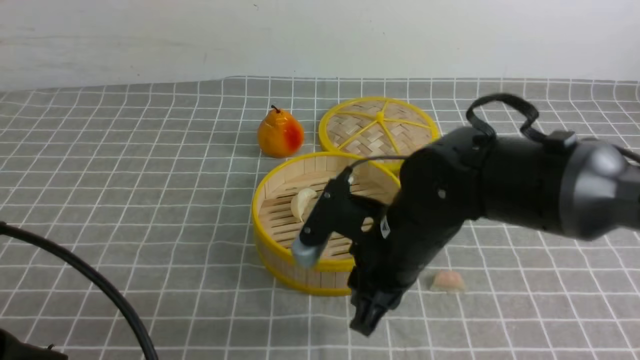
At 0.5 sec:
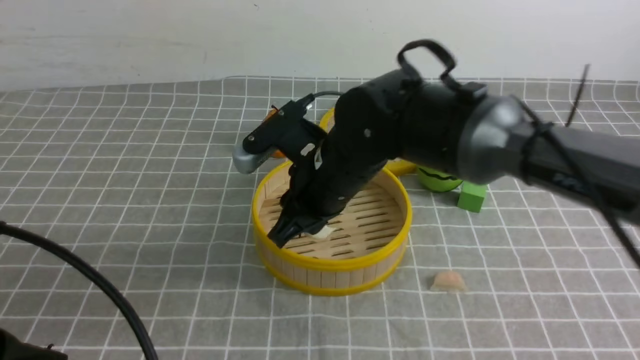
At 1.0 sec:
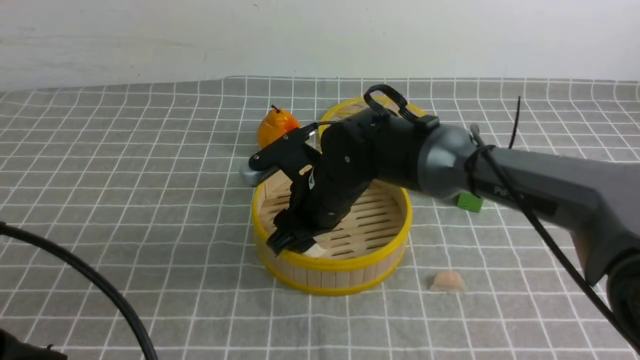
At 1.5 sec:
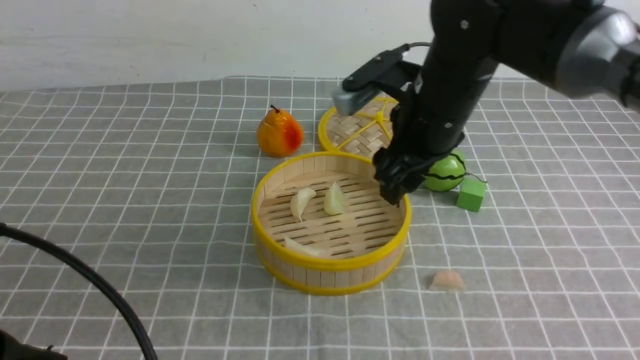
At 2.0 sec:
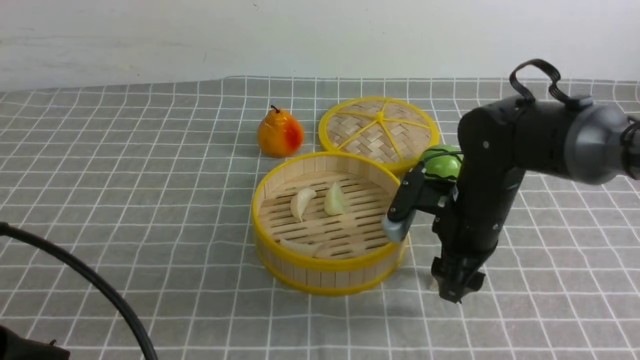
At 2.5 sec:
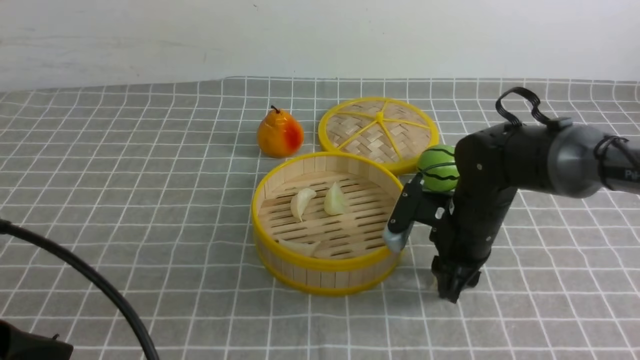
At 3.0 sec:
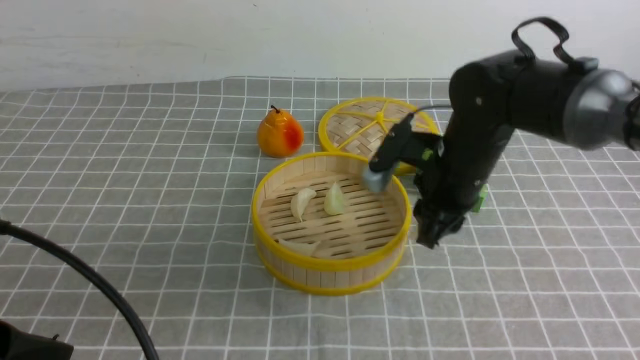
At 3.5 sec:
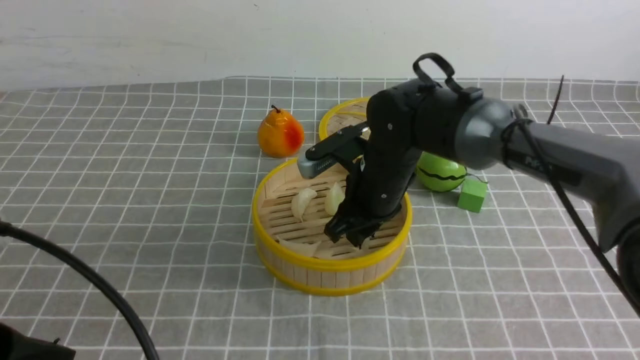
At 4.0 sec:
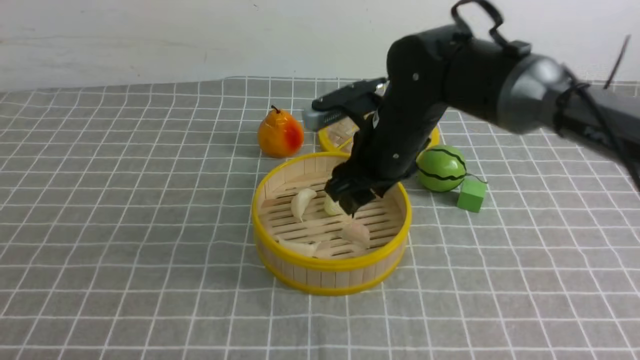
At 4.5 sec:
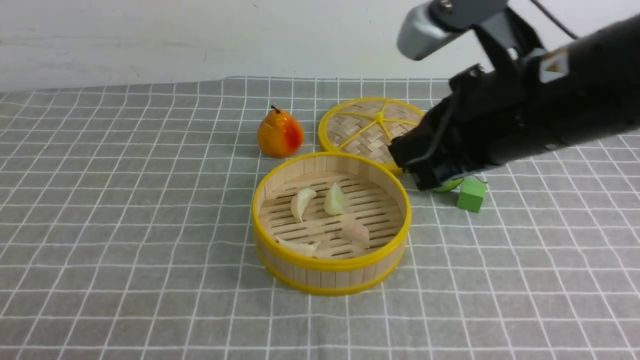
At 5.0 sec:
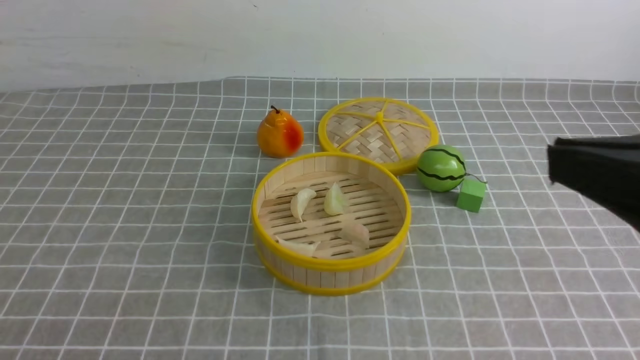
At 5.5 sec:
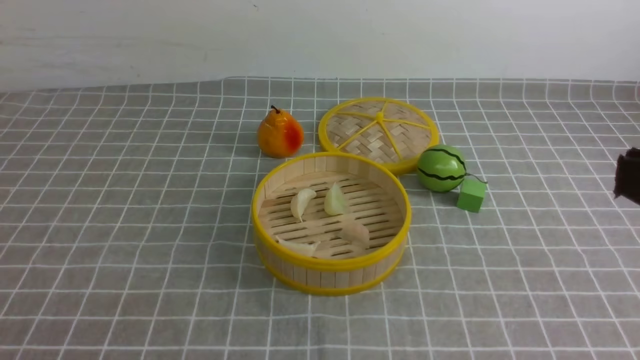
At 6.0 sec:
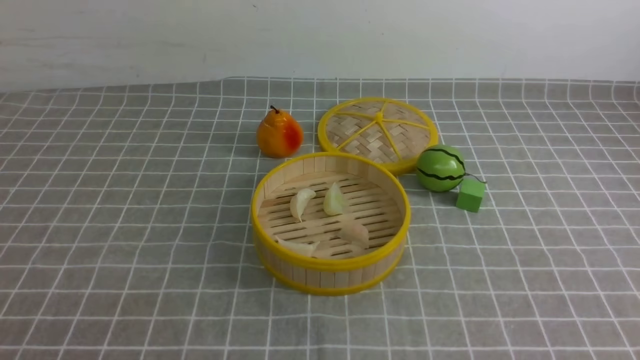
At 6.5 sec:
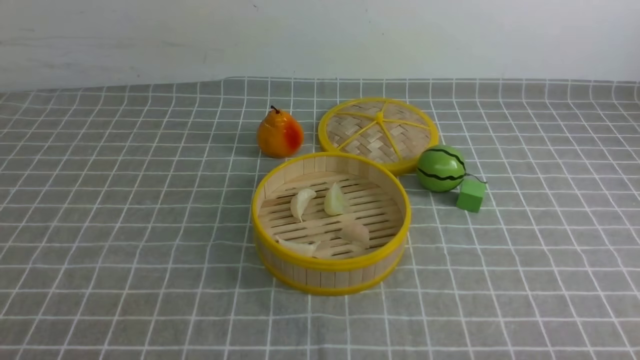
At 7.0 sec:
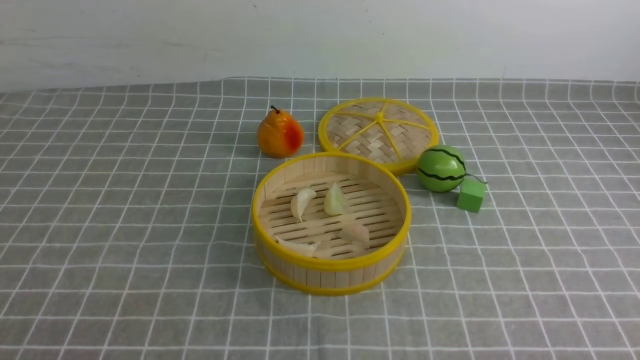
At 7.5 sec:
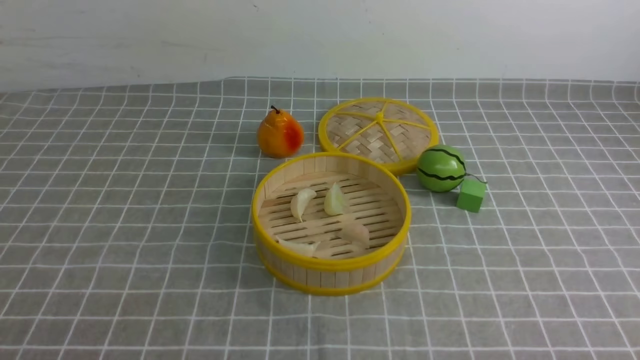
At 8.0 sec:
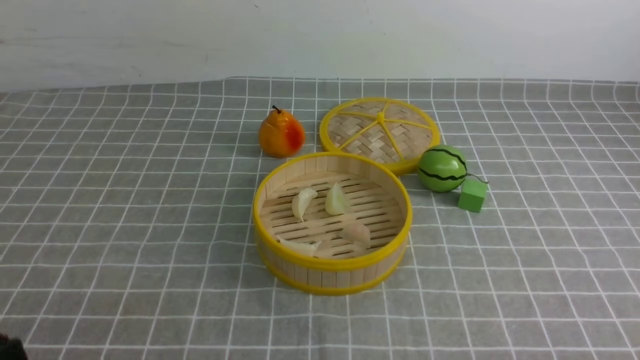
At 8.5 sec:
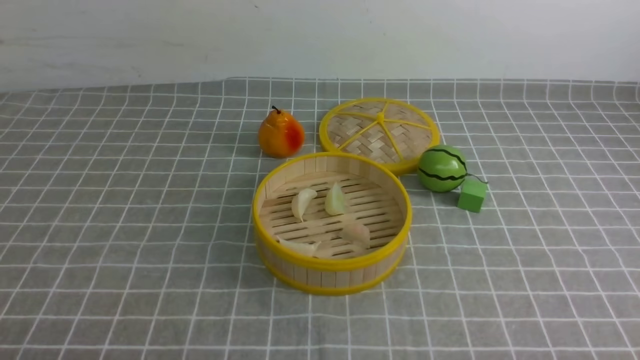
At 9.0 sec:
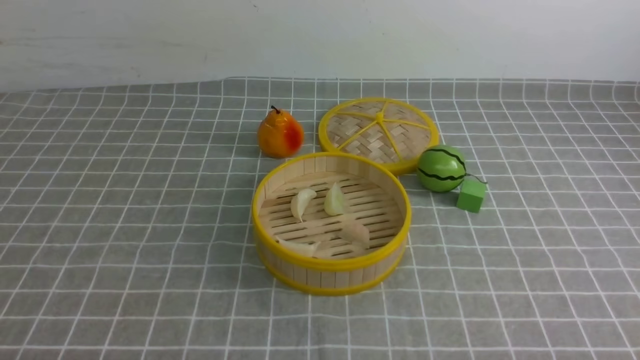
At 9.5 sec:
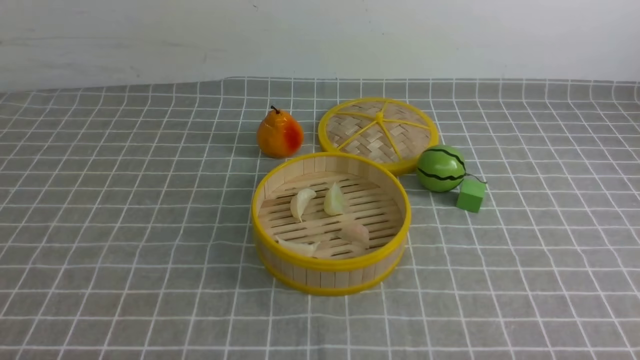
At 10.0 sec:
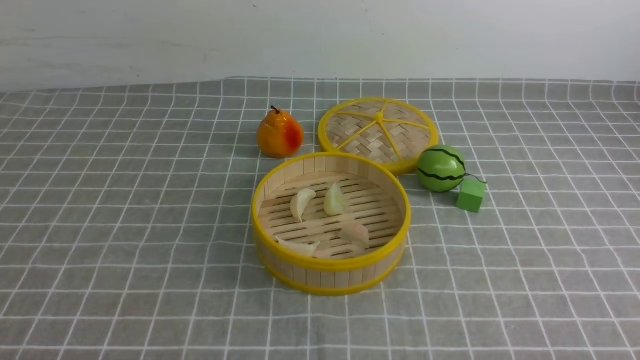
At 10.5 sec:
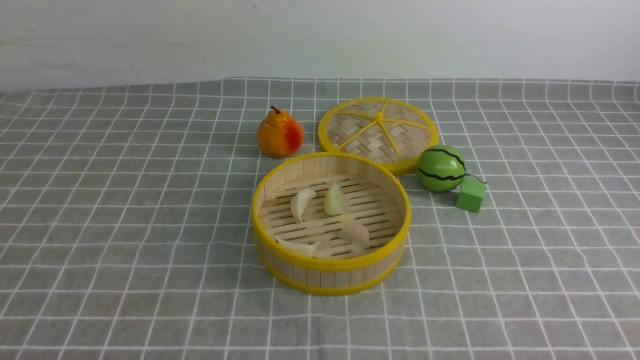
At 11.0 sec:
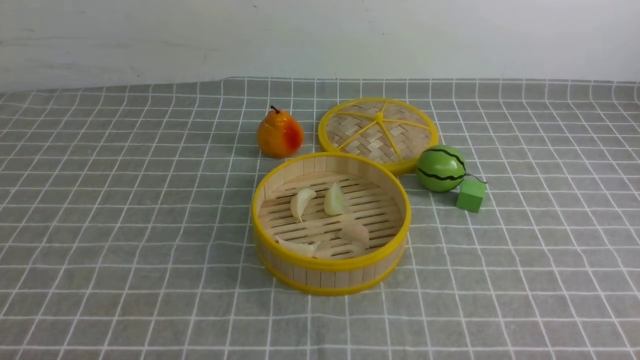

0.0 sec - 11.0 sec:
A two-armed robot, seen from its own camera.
Task of the whole recording: put the dumplings into the steamer on the table with the grey tablecloth.
Step, 0.0 sec - 1.0 sec: use the right arm to put the dumpling into the steamer.
Step, 1.5 sec - 2.5 sec: use the right arm to grab a dumpling.
Step, 3.0 sec - 3.5 sec: use the right arm to put the dumpling into the steamer.
0.0 sec - 2.0 sec: The right gripper moves to the right and forward, roughly 10 cm, and opens up.
2.0 sec - 3.5 sec: The right gripper is displaced to the left by approximately 10 cm, and closes up.
3.5 sec - 5.5 sec: The right gripper is displaced backward, upward and to the right by about 40 cm, and closes up; the left gripper goes roughly 5 cm backward.
9.0 sec - 11.0 sec: Neither gripper changes place.

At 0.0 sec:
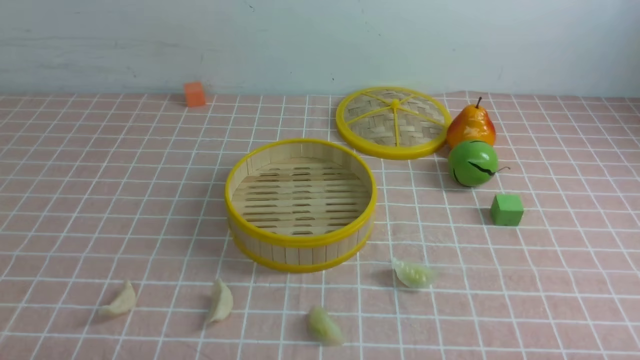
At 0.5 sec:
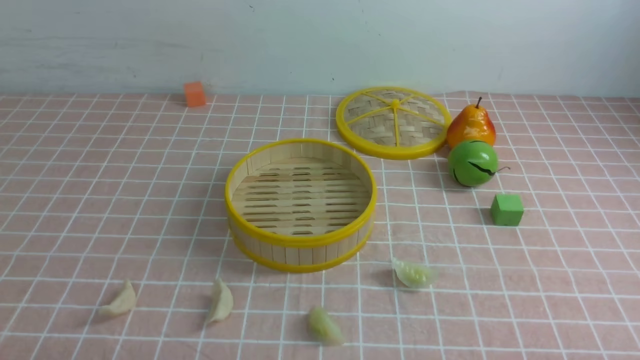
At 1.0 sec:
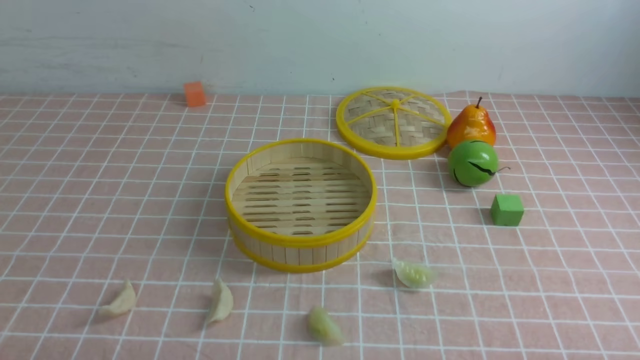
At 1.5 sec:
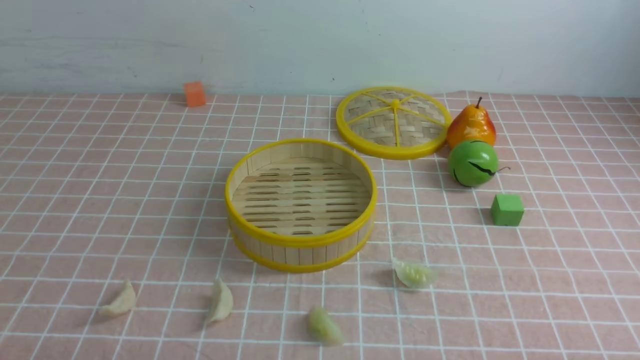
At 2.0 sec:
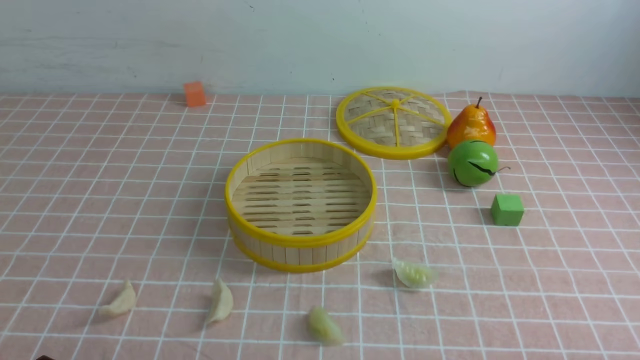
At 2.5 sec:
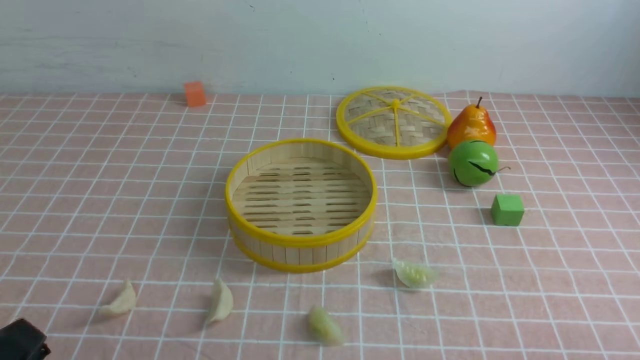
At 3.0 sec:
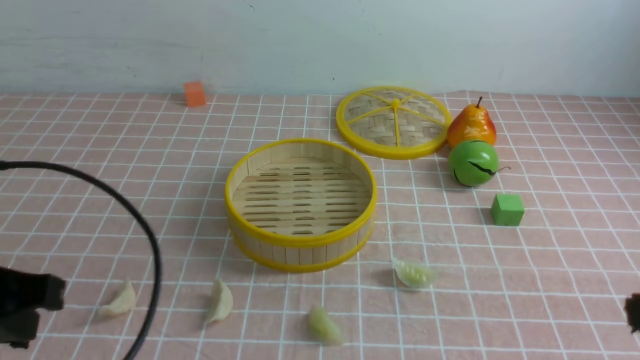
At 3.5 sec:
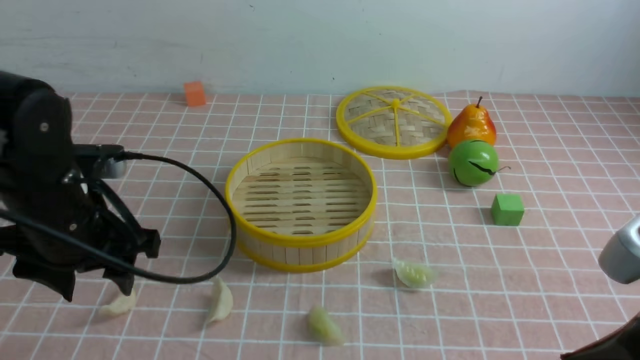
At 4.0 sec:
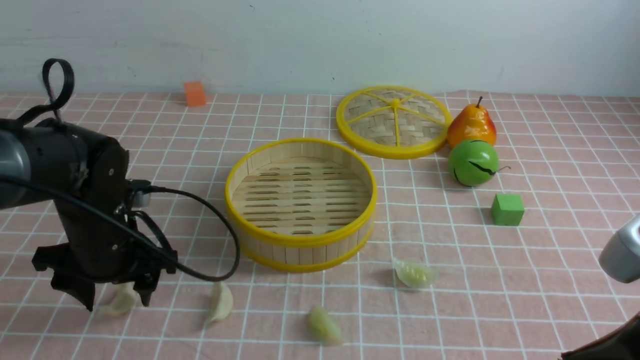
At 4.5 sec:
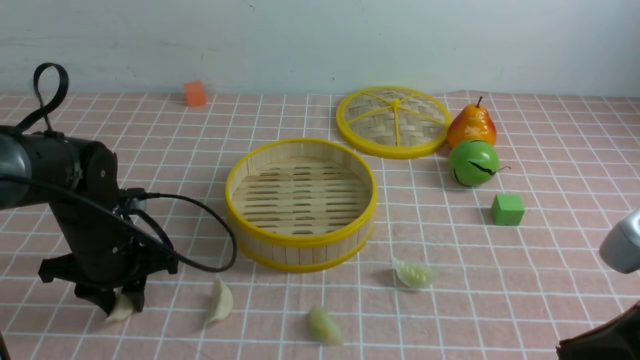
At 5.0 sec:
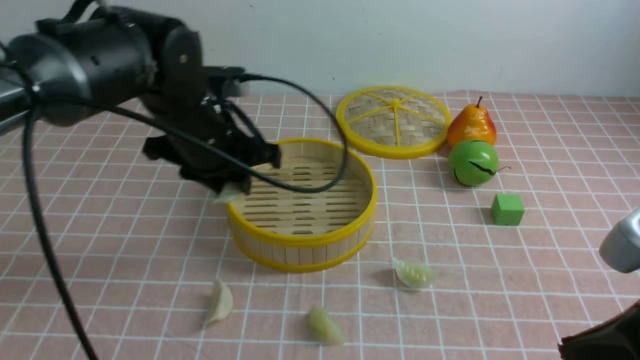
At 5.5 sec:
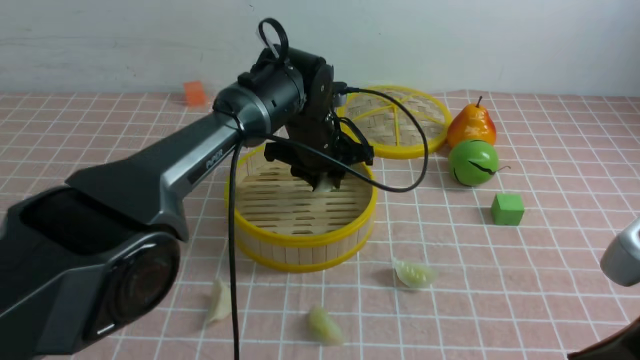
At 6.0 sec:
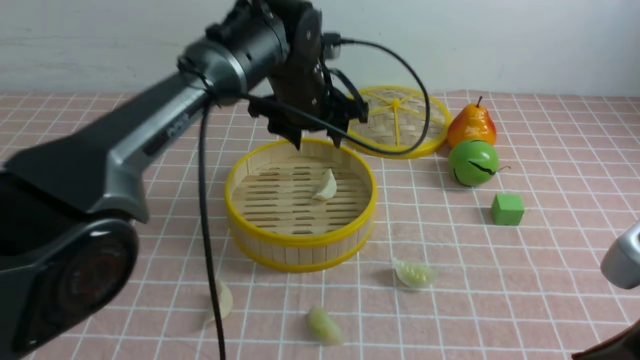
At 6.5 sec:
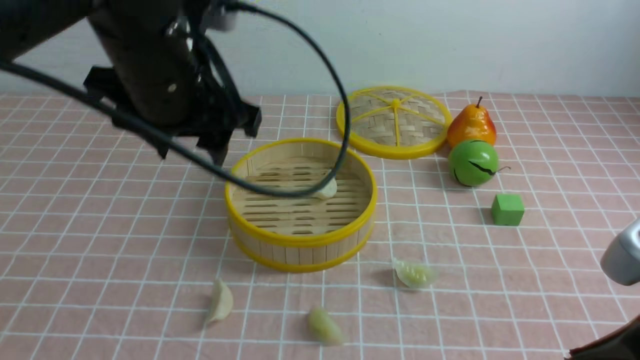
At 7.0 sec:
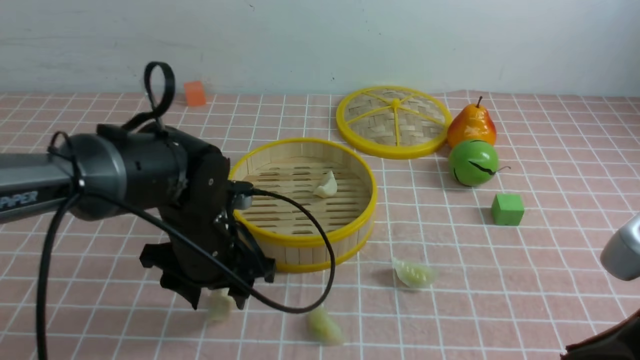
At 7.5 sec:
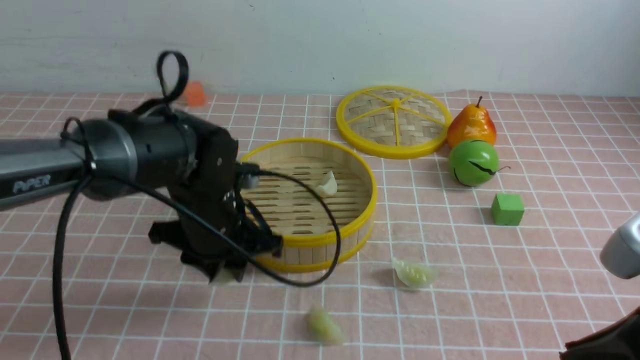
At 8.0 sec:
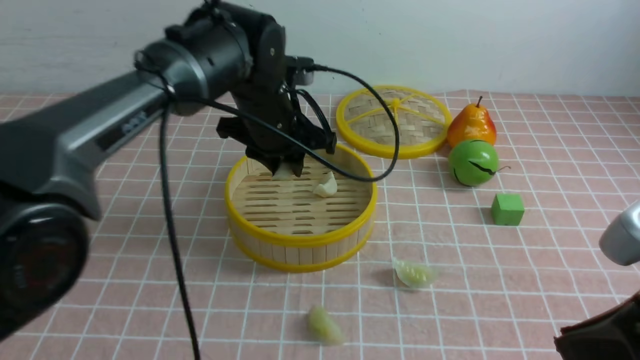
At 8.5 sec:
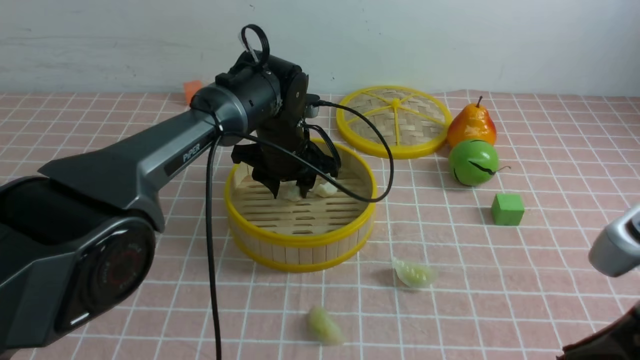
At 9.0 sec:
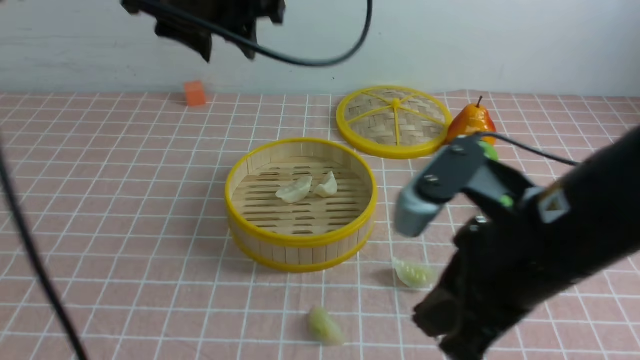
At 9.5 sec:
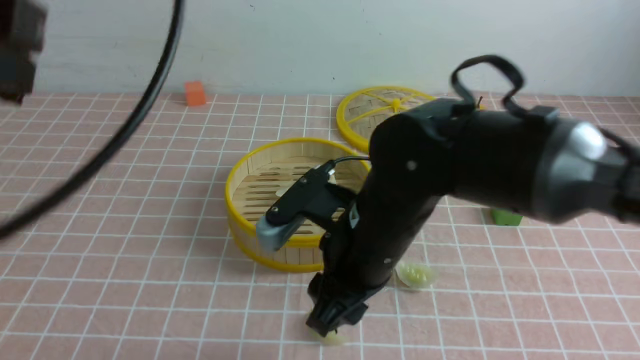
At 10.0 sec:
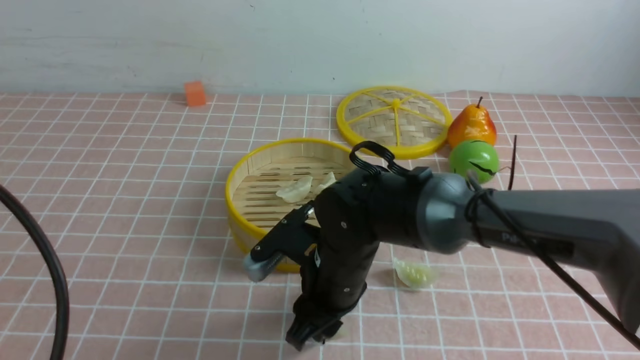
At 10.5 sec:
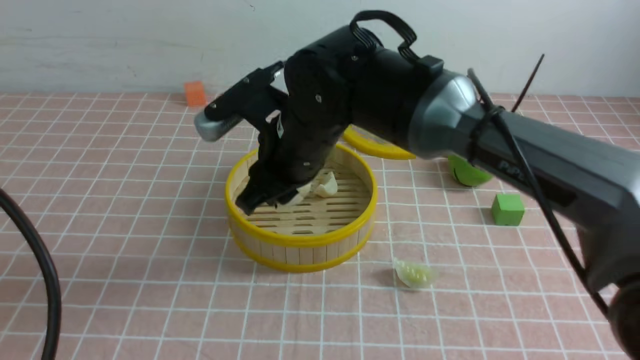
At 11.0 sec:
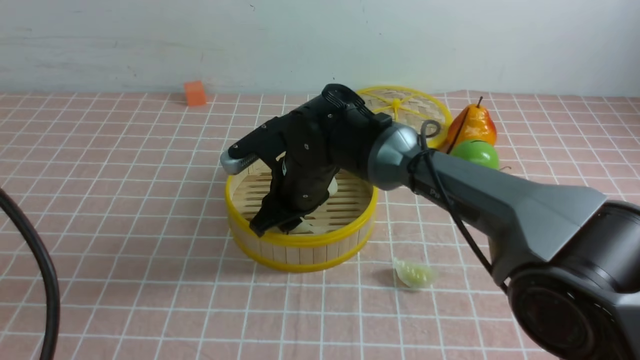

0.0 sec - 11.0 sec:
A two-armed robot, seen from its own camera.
Task of the whole recording: put the dumplings into the steamer on the table with the pink tablecloth.
Step, 0.0 sec - 4.5 sec: use the left arm to grab a dumpling.
Step, 5.0 sec - 5.5 sec: use the left arm to put the dumpling into the steamer.
Step, 6.0 sec - 7.0 sec: use the left arm to grab a dumpling.
Step, 7.5 sec - 8.5 sec: use the left arm to put the dumpling into the steamer.
Step, 9.0 sec - 10.0 sec: use the right arm to grab a dumpling.
2.0 sec - 3.5 sec: The right gripper is displaced upward, forward and to the left by some 15 cm, and closes, while the left gripper goes approximately 25 cm forward, and opens up.
3.5 sec - 5.5 sec: The left gripper moves to the right and forward, approximately 25 cm.
5.5 sec - 7.5 sec: The left gripper goes some 15 cm backward and to the left, moves approximately 10 cm upward and comes back, and opens and closes again.
7.5 sec - 9.0 sec: The right gripper shifts some 10 cm to the left and forward, while the left gripper shifts approximately 20 cm upward.
9.0 sec - 11.0 sec: The right gripper heads forward, to the left and downward, covering roughly 25 cm, and opens its fingers; the left gripper goes approximately 30 cm backward and to the left, and closes its fingers.
